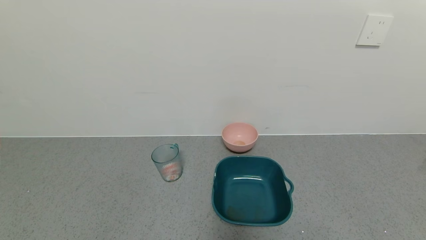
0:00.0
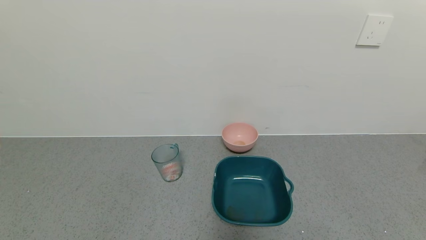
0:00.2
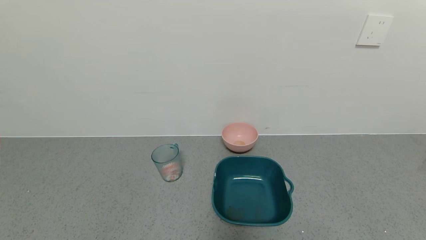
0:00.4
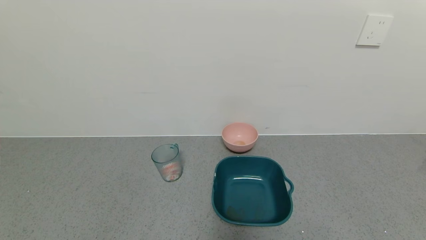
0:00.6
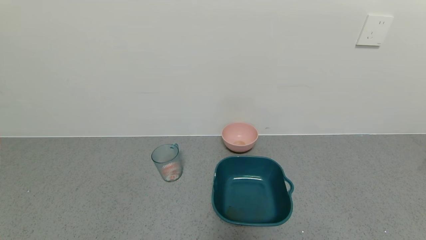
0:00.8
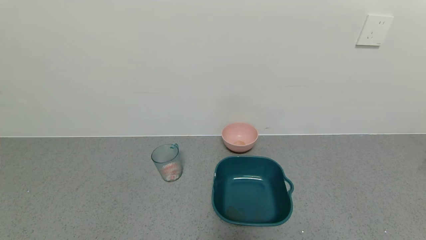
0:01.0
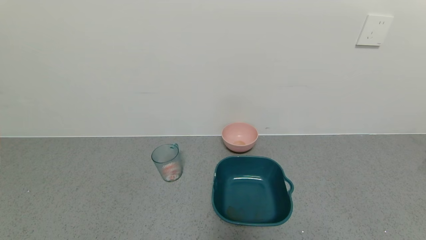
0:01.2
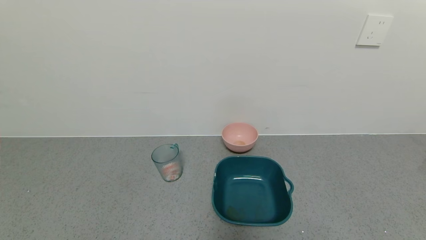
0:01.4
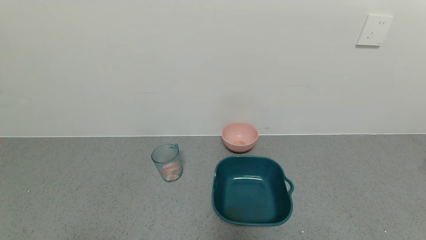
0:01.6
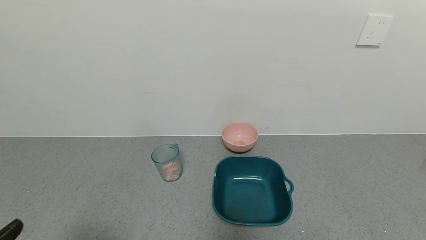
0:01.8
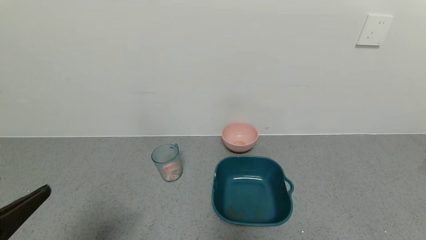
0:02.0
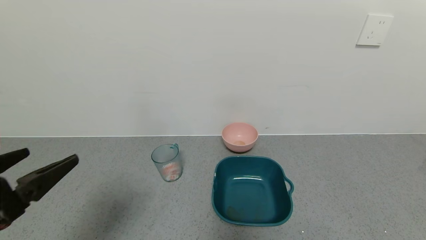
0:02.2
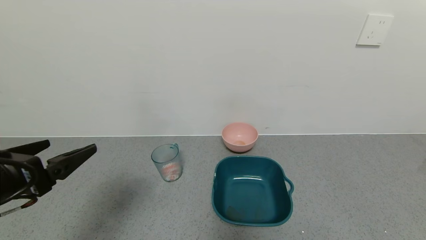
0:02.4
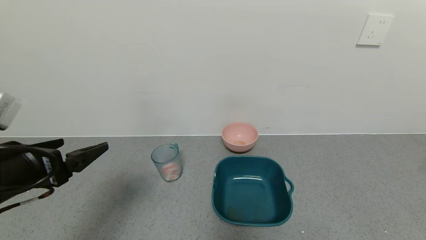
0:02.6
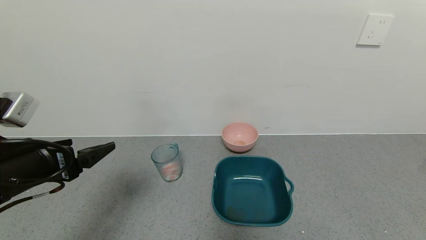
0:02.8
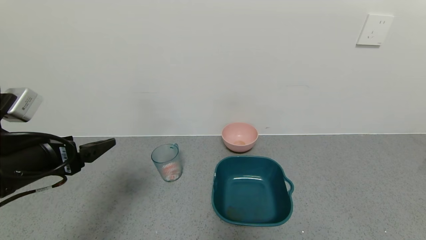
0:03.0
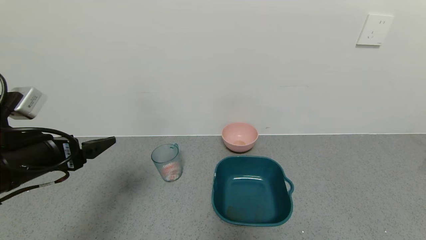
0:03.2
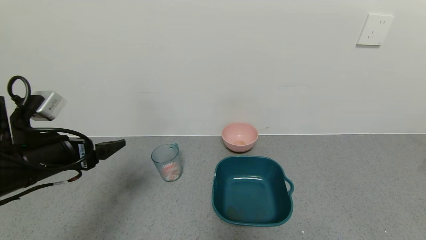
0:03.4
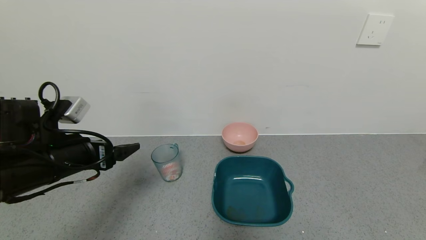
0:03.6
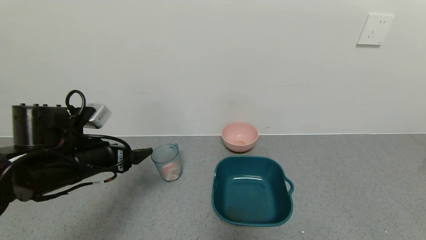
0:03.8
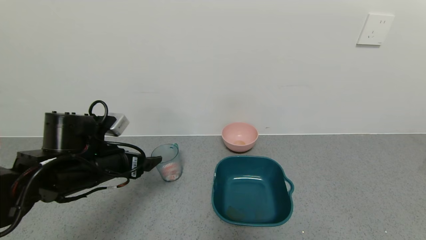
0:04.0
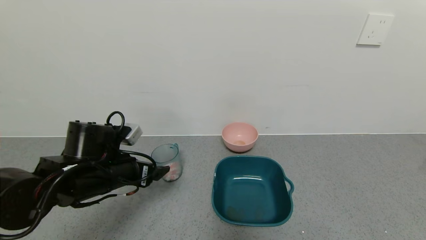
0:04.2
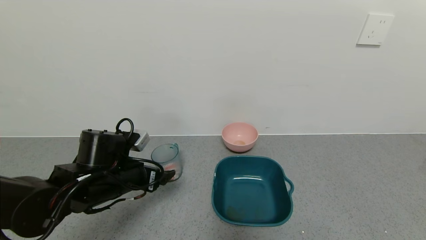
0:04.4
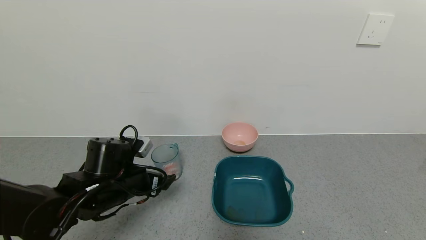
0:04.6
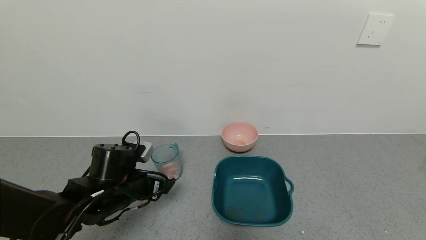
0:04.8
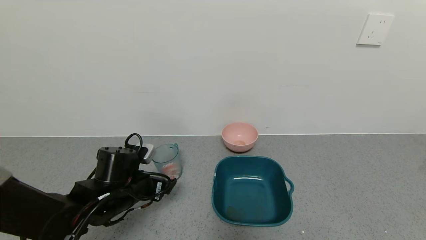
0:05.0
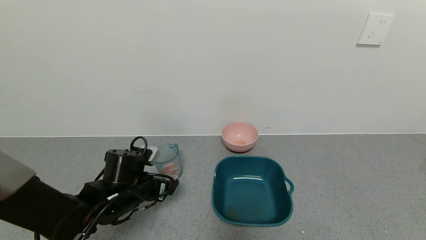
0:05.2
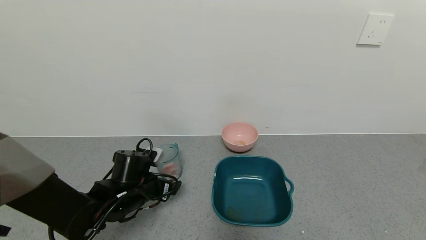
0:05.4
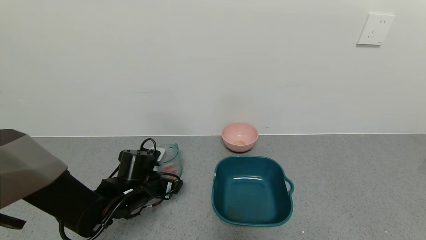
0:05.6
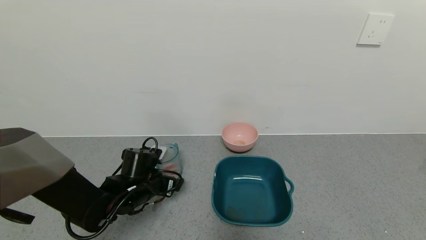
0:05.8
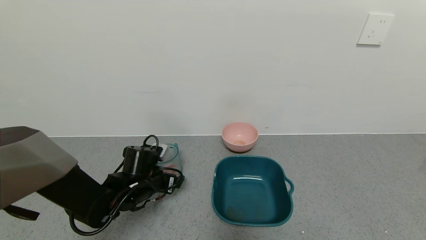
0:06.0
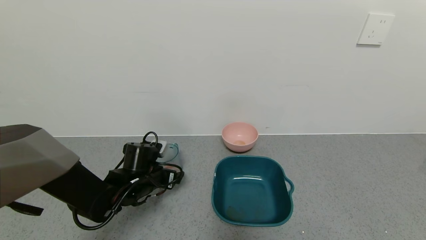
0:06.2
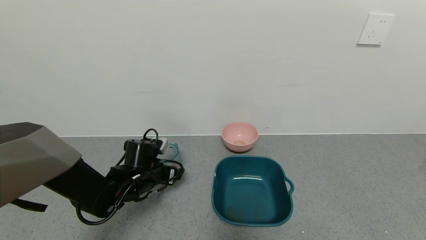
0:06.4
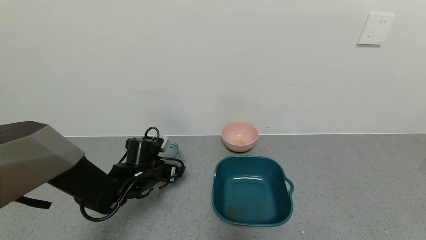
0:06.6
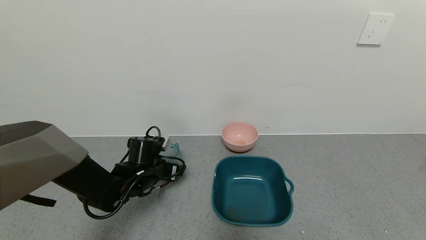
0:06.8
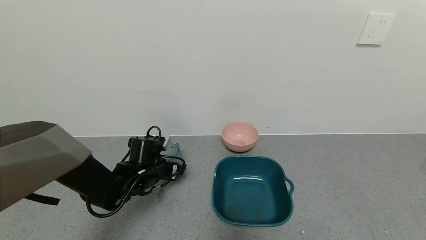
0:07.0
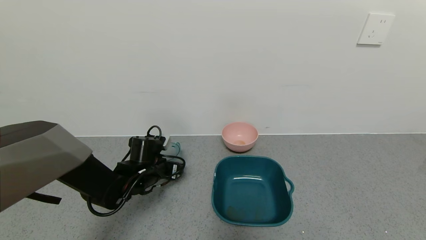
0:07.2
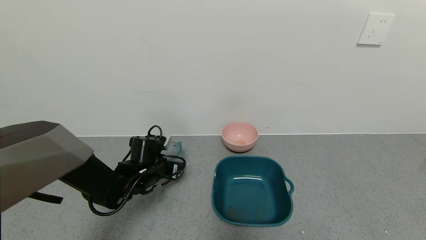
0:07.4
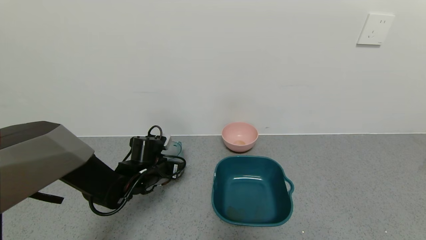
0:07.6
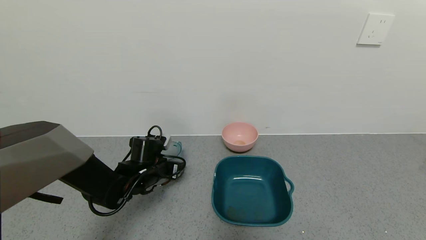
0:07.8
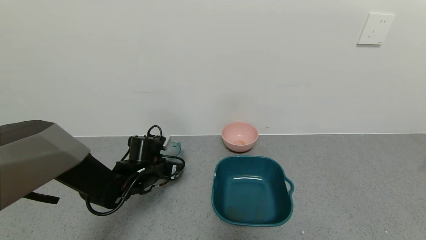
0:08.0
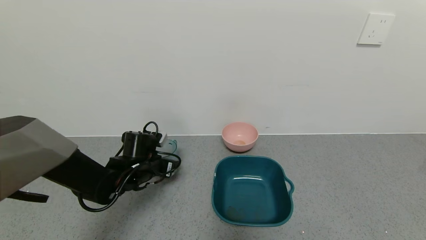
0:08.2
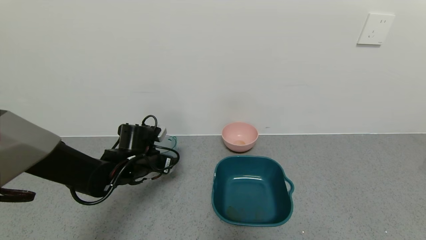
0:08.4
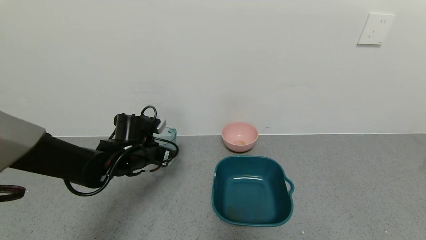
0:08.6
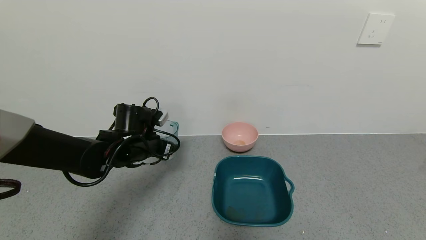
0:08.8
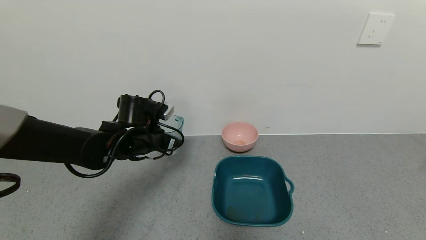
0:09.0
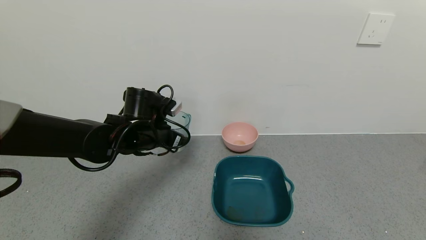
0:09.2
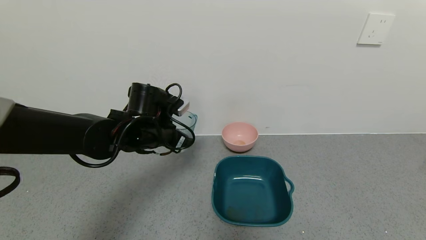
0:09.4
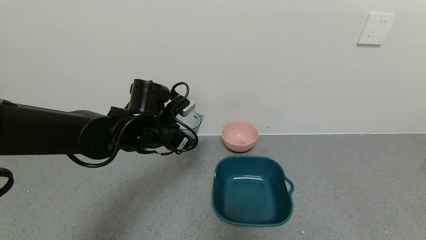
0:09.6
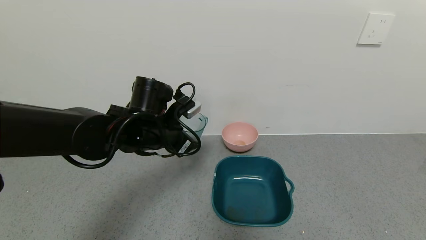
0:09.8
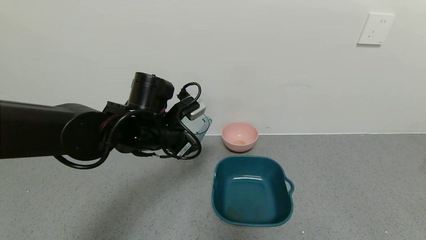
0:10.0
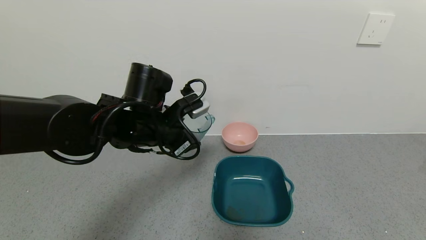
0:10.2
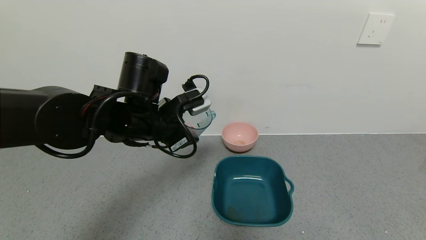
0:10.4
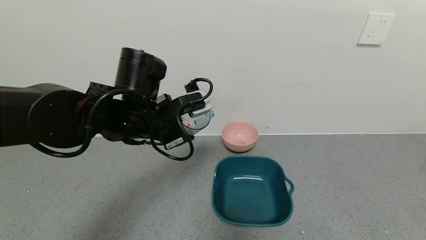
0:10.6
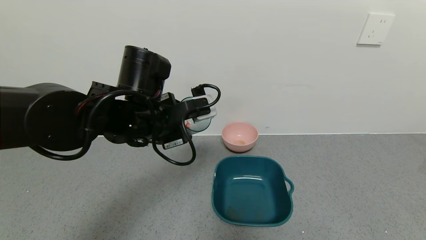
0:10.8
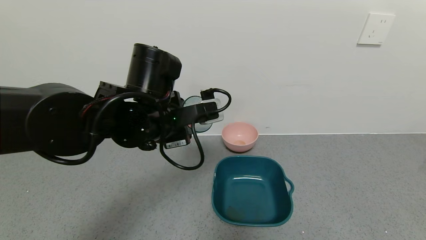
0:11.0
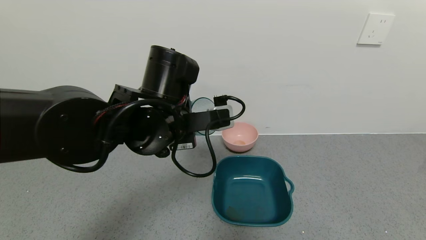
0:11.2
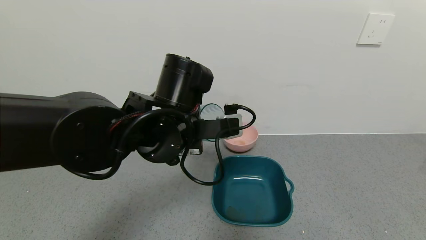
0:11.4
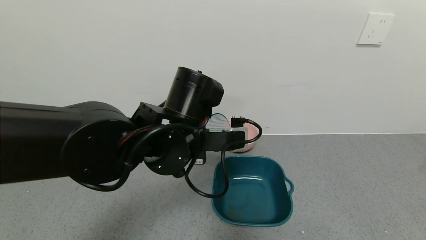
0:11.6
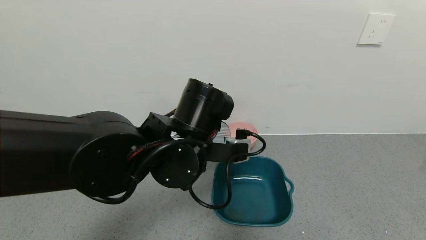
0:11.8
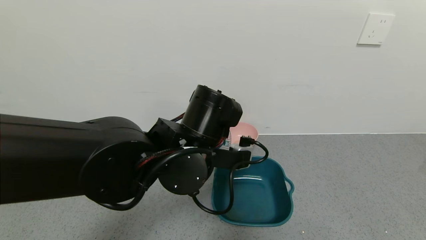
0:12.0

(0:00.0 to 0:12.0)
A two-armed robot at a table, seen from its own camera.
Task of the whole recording: use a gripper to pick up the cup and pour the solid into a bowl or tray.
Step, 0:00.0 - 0:07.6: Grasp the glass of shrimp with the left gripper.
0:01.6 - 0:03.0: The left gripper is displaced forward by some 20 cm.
0:03.0 - 0:04.4: The left gripper travels downward, forward and to the right by about 15 cm.
0:04.4 - 0:06.0: The left gripper shifts about 5 cm downward.
0:06.0 - 0:07.6: The left gripper closes up.
0:07.6 - 0:09.0: The left gripper moves upward, roughly 10 cm.
0:09.0 - 0:10.4: The left gripper travels upward, to the right and backward by some 10 cm.
0:10.4 - 0:12.0: The left gripper heads to the right and backward, covering some 10 cm.

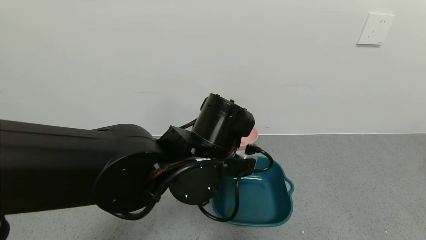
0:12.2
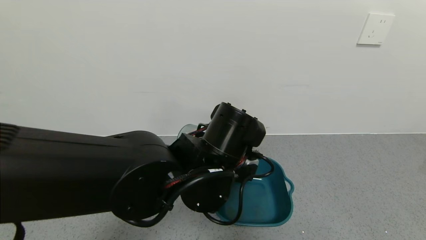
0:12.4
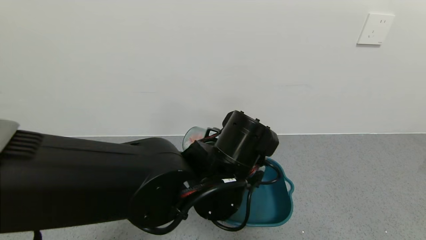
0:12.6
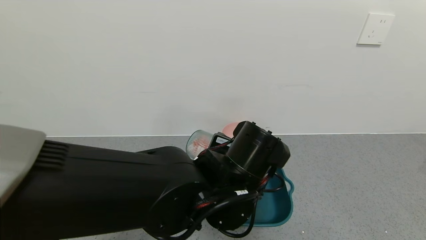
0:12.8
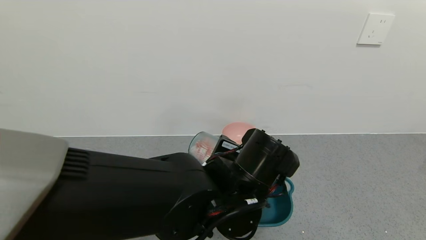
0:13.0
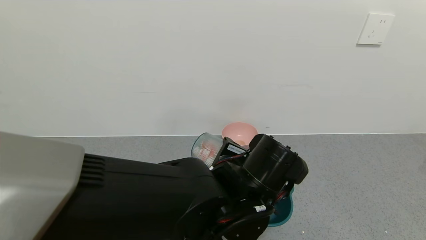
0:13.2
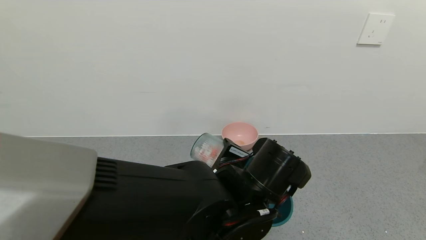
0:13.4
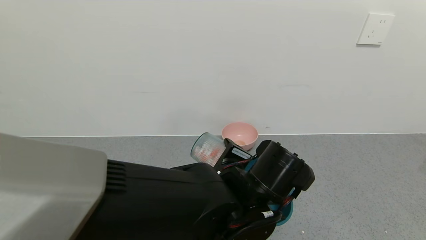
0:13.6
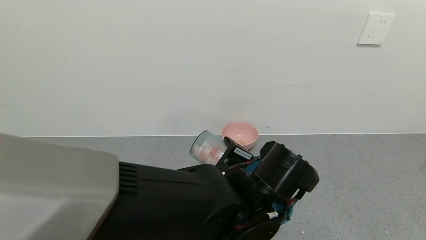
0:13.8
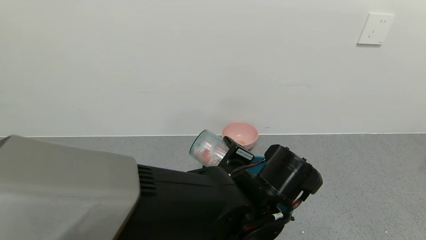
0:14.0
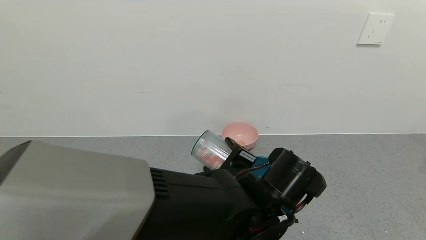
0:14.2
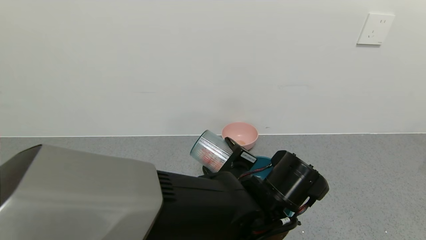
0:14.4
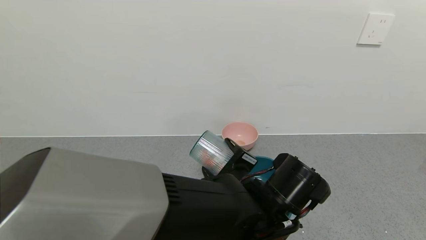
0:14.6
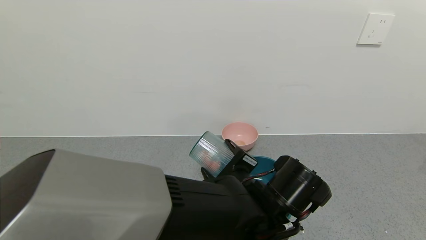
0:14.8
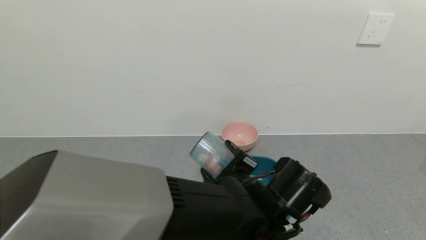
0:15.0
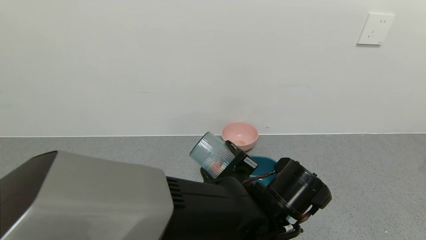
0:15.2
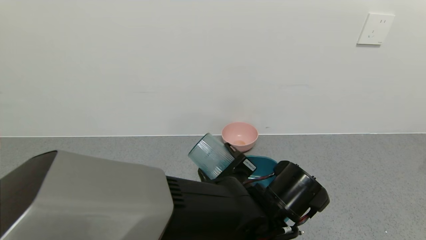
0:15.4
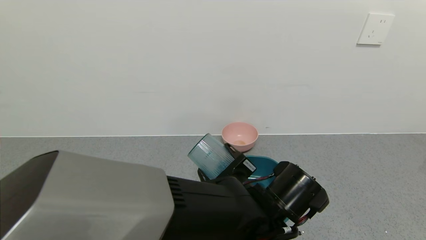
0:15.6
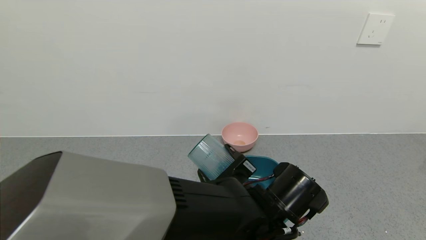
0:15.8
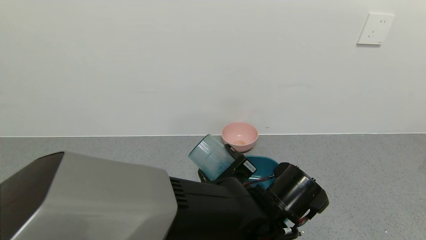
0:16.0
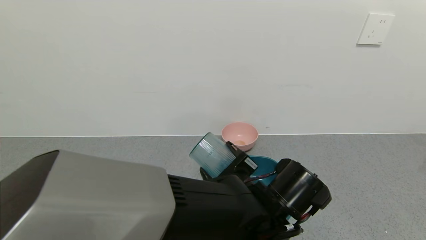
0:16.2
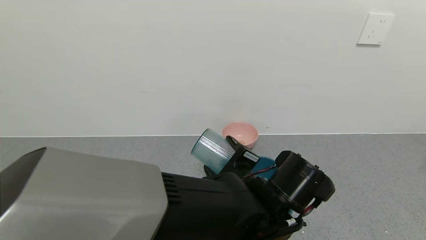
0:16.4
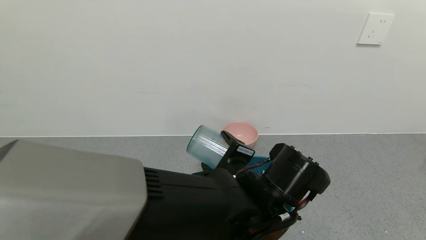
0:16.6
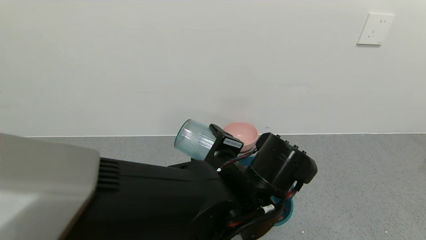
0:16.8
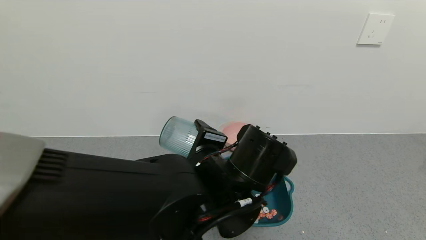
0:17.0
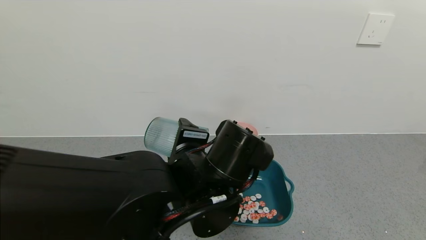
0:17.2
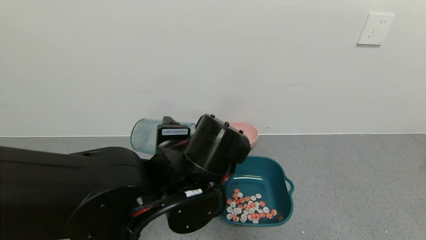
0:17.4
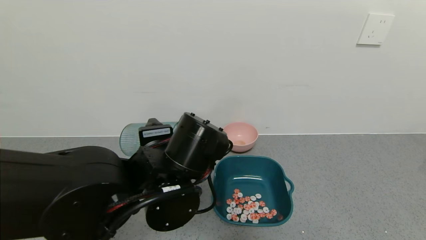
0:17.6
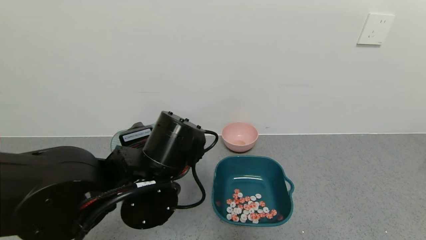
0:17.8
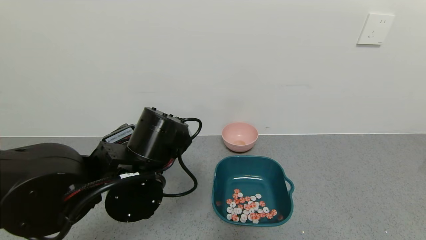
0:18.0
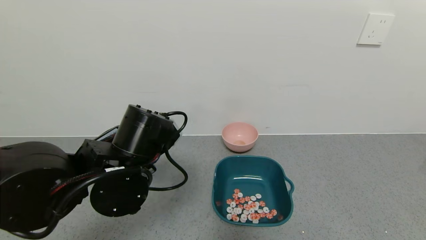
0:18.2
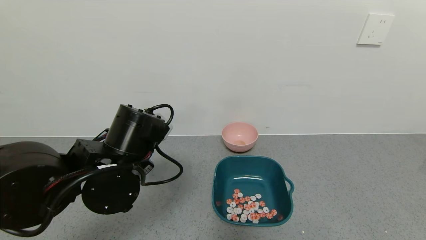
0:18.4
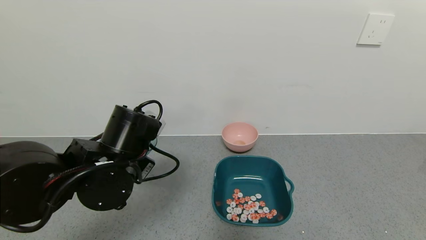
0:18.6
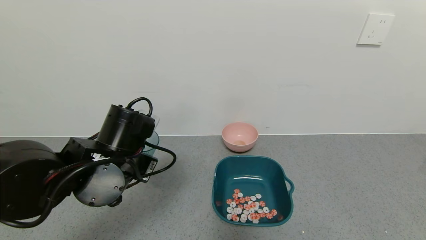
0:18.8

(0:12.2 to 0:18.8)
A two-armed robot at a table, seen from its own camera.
Task of the whole recording: use a gripper to pick up the cup and pour the solid into a bowl or tray.
Step, 0:12.2 - 0:17.0: Pour the shrimp beans into the green bowl with the left gripper.
0:12.2 - 0:13.8: The left gripper is displaced to the right and downward by about 10 cm.
0:13.8 - 0:15.4: The grippers stay close to where they were, moving slightly.
0:15.4 - 0:17.2: The left gripper shifts roughly 10 cm to the left and upward.
0:17.2 - 0:18.8: The left gripper goes about 15 cm to the left.
